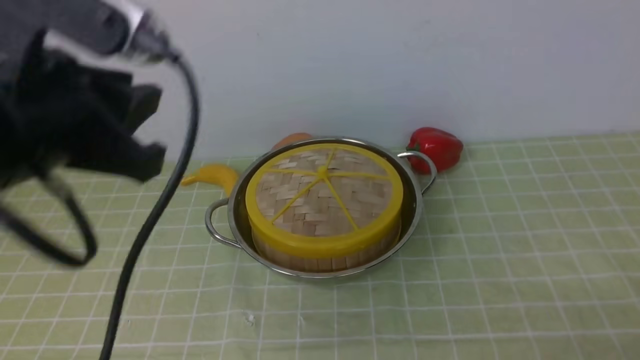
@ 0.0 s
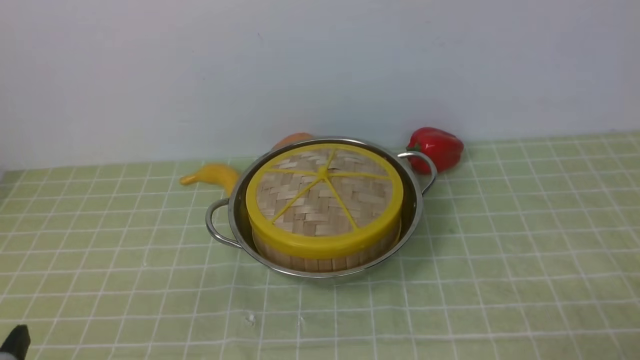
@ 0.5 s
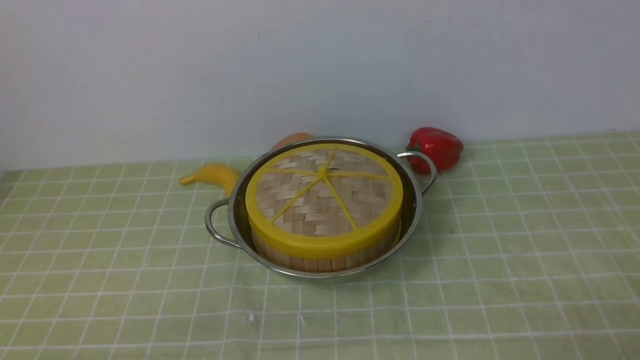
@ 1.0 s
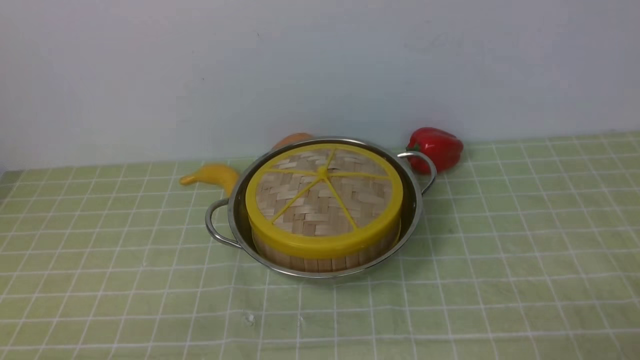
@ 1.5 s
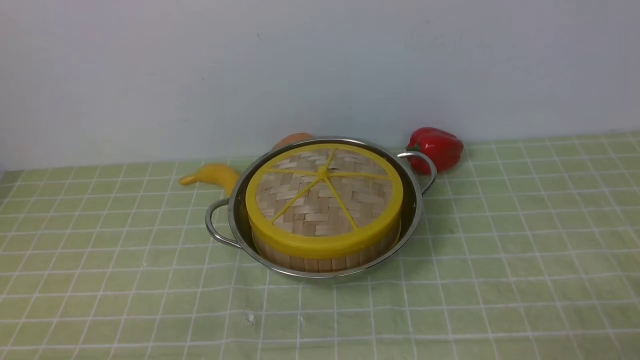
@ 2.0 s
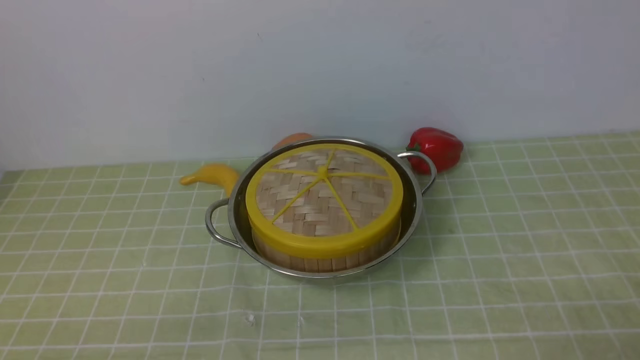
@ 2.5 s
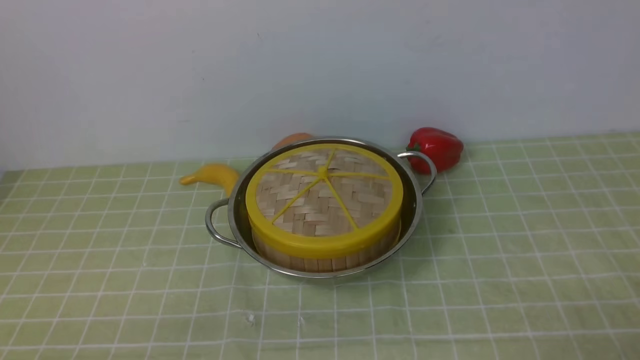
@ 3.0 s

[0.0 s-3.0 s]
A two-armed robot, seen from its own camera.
Task of the whole recording: place the steamer in the pot on the green tablecloth, and put the lid on the steamer.
0.0 to 1.5 s: The left gripper is displaced downward and backward by roughly 25 cm.
1.5 to 3.0 s: Both grippers stay put.
